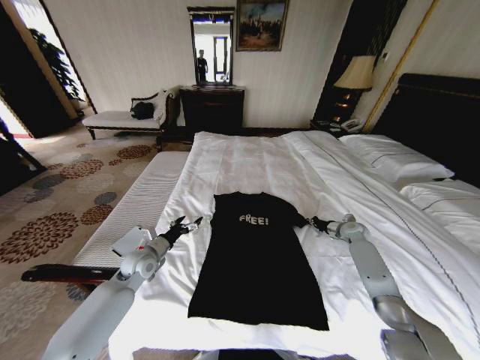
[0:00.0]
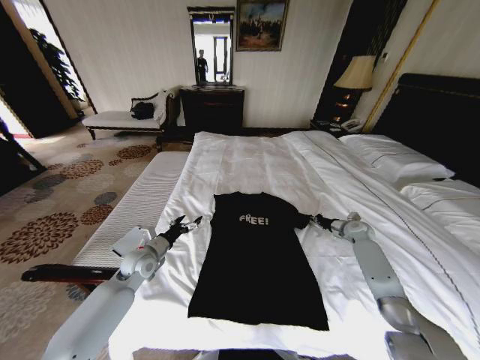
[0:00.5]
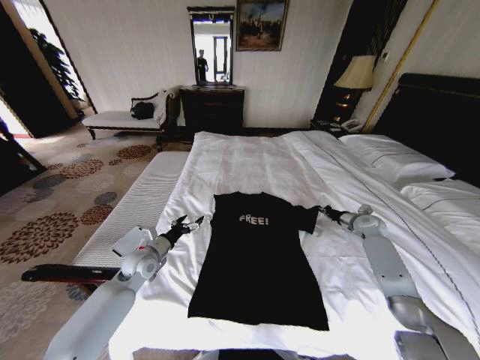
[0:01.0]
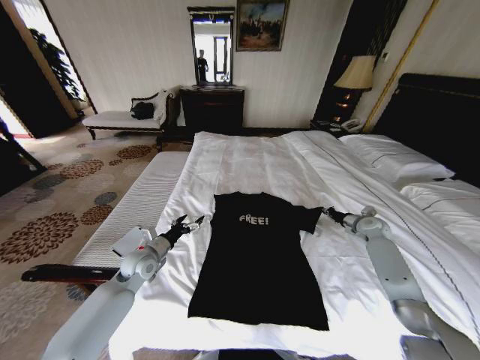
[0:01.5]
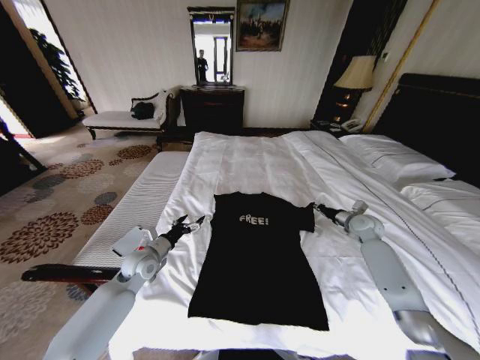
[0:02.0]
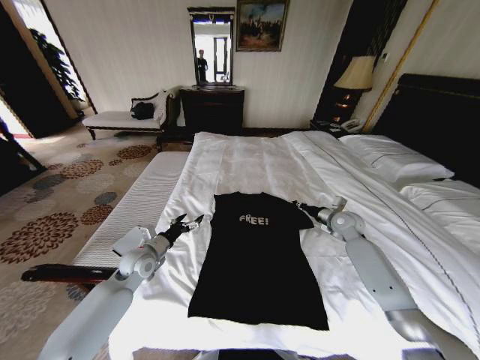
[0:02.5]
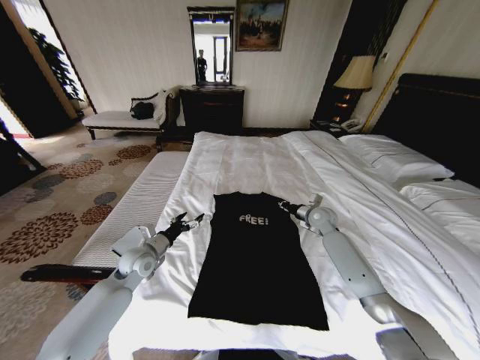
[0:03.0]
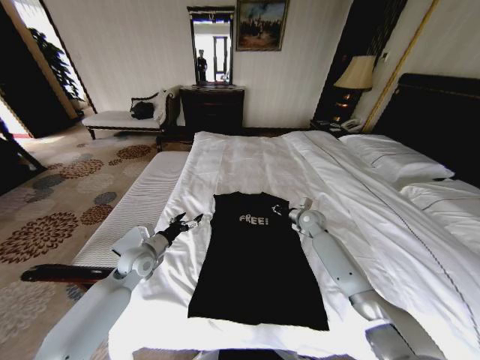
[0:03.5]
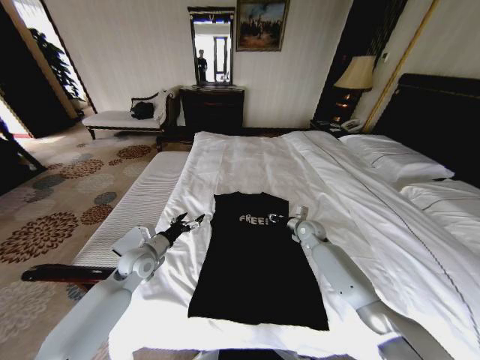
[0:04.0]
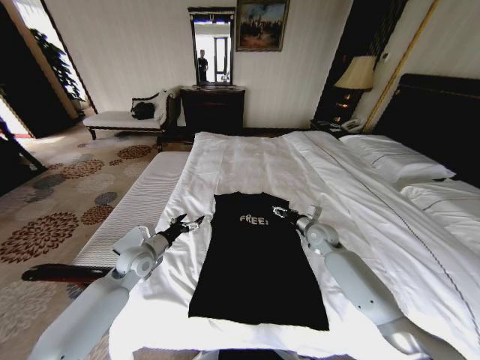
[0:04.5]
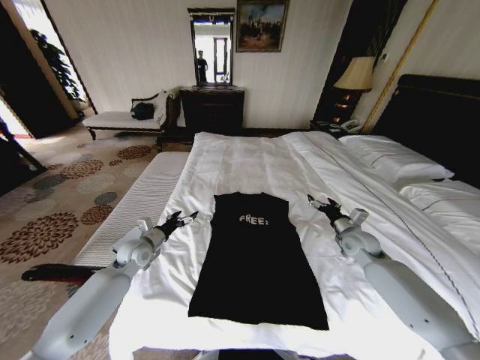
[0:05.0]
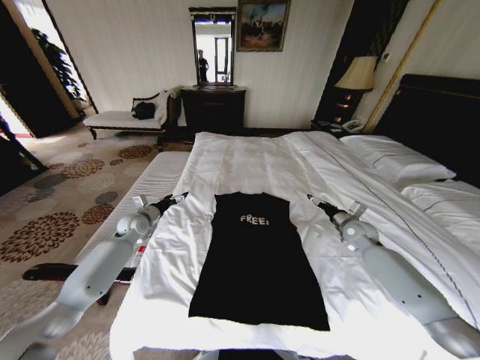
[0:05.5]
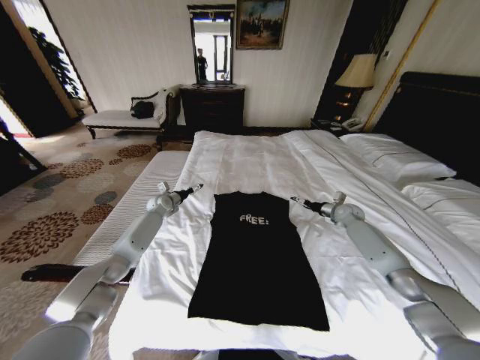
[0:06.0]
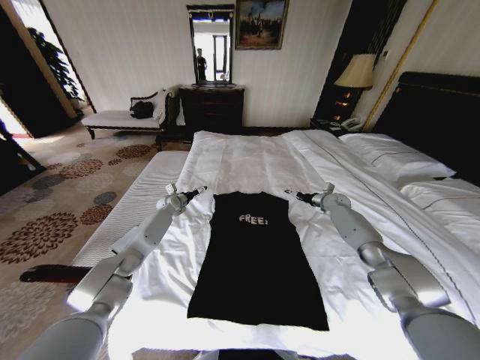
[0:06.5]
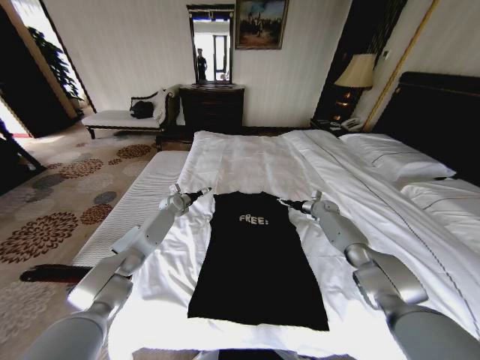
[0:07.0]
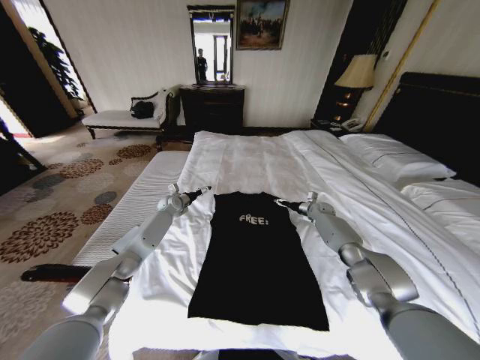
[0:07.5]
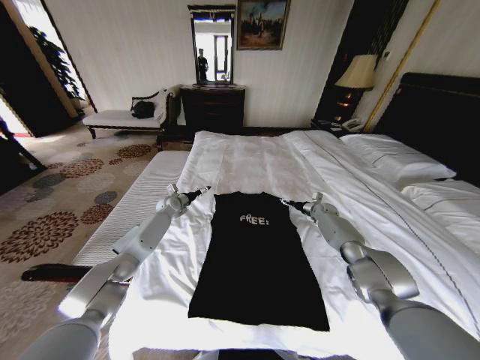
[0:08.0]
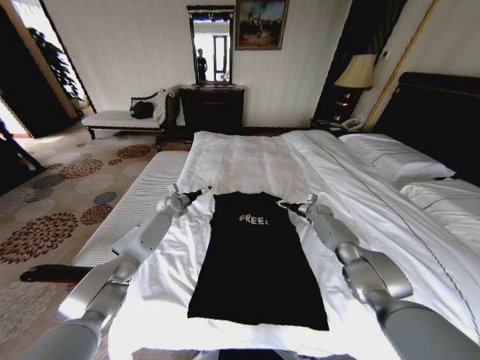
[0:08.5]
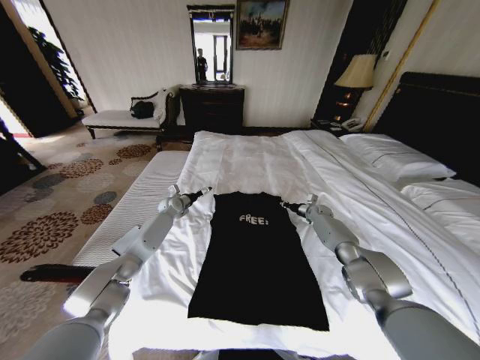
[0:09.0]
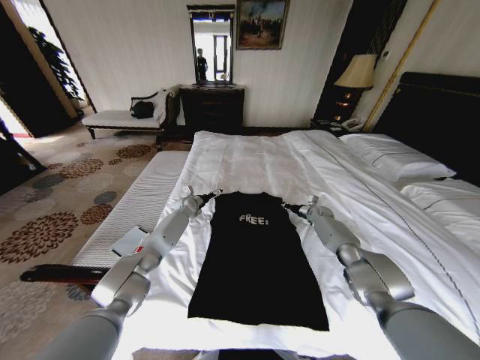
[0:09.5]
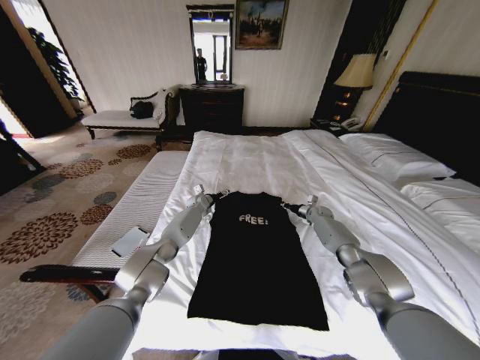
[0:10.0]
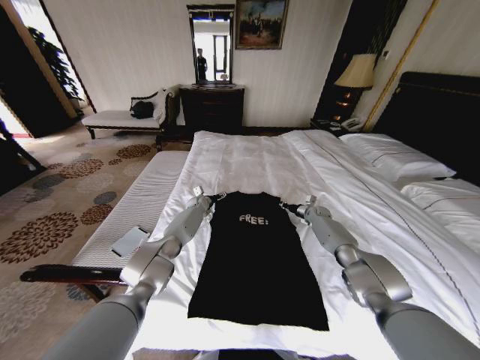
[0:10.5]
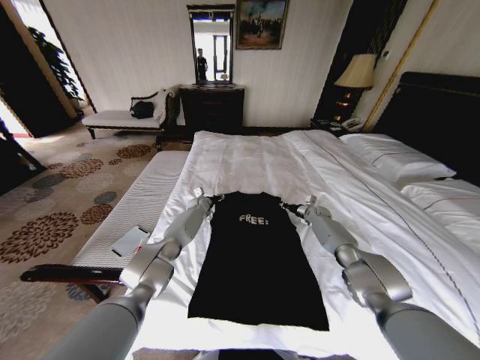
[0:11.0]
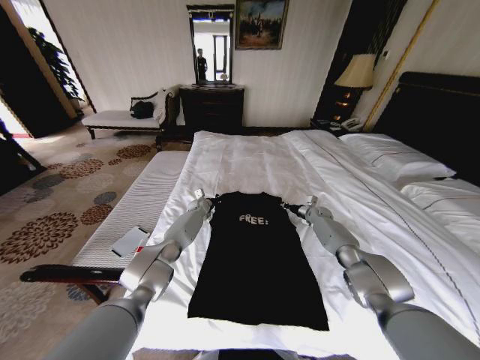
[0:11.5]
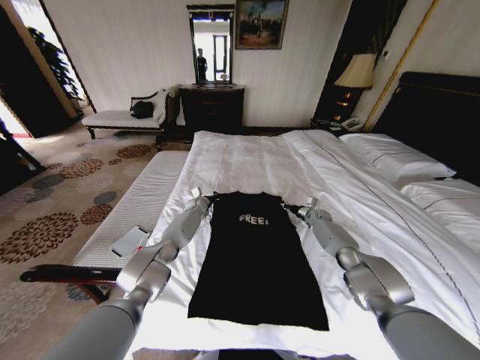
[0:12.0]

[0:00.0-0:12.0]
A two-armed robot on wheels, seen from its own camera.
Task of the whole recording: Fold the clothes on the bed.
0:00.0 to 0:02.0: The right gripper goes about 5 cm upward.
0:02.0 to 0:04.0: The right gripper heads to the left, covering roughly 15 cm.
0:04.0 to 0:06.0: The left gripper is displaced forward by approximately 25 cm, while the right gripper travels to the right and forward by approximately 15 cm, and opens up.
0:06.0 to 0:08.0: The right gripper travels downward and forward by approximately 10 cm.
0:08.0 to 0:10.0: The left gripper goes roughly 10 cm to the right. The right gripper closes up.
0:10.0 to 0:12.0: The left gripper closes its fingers.

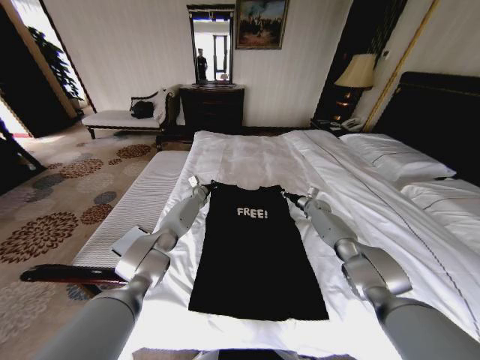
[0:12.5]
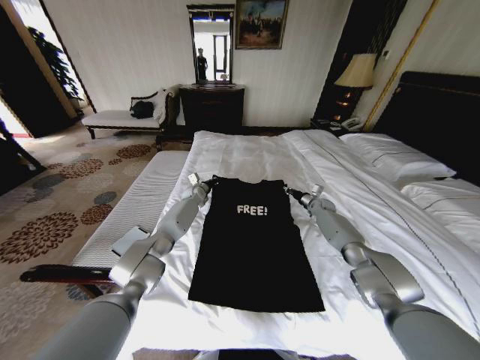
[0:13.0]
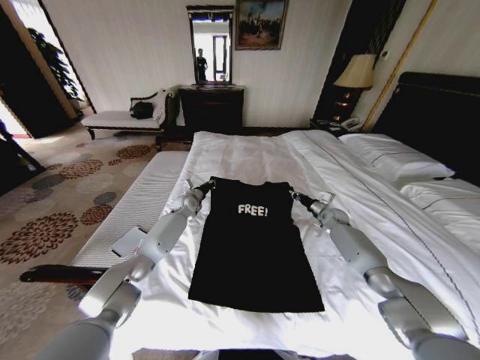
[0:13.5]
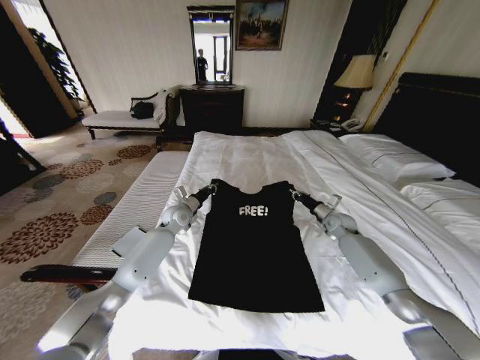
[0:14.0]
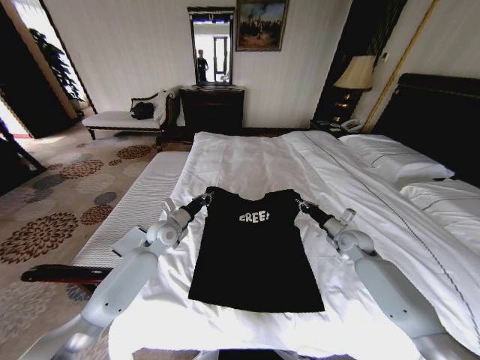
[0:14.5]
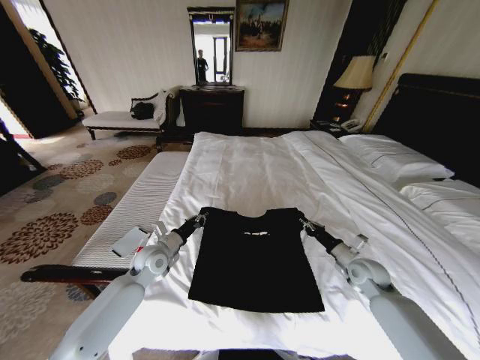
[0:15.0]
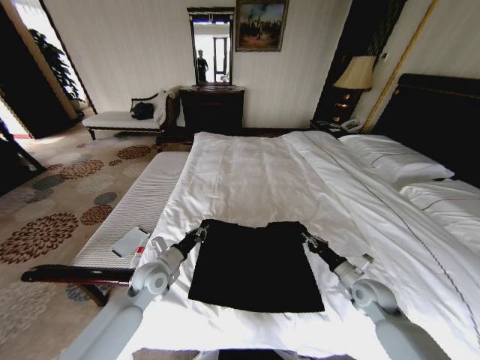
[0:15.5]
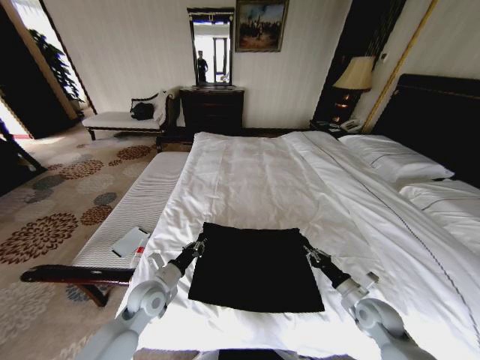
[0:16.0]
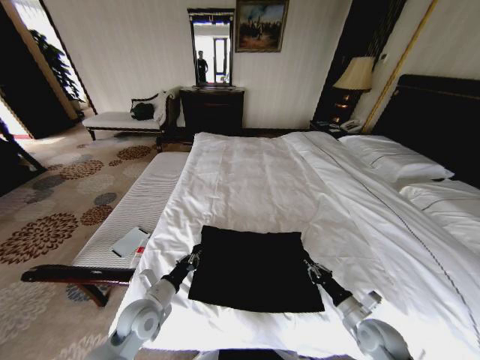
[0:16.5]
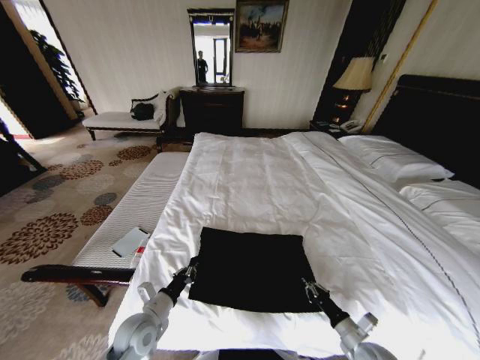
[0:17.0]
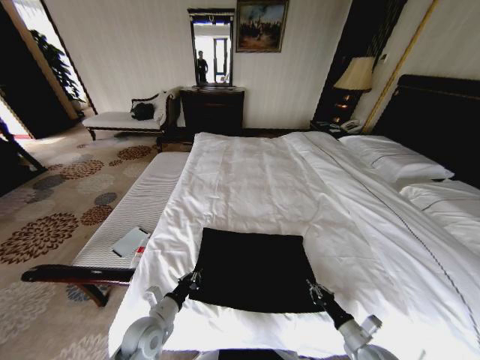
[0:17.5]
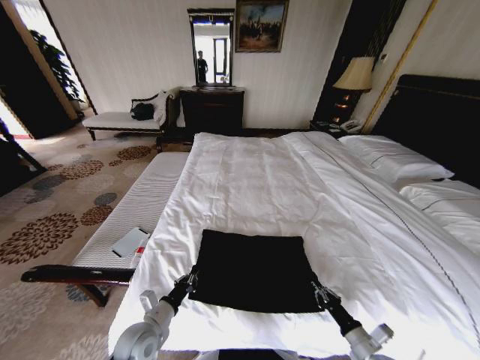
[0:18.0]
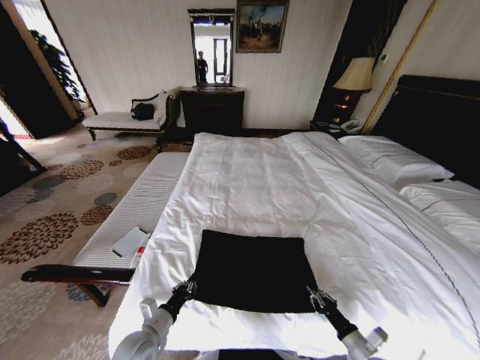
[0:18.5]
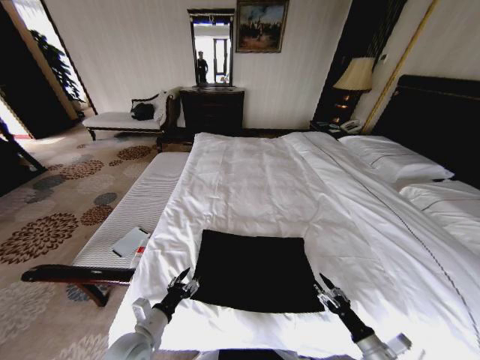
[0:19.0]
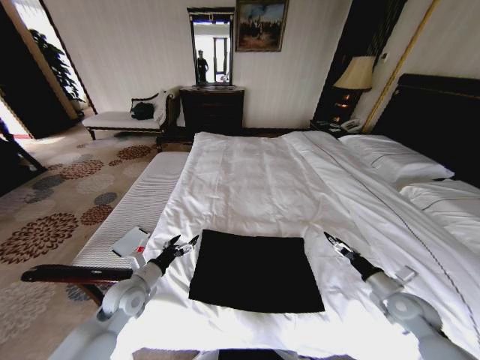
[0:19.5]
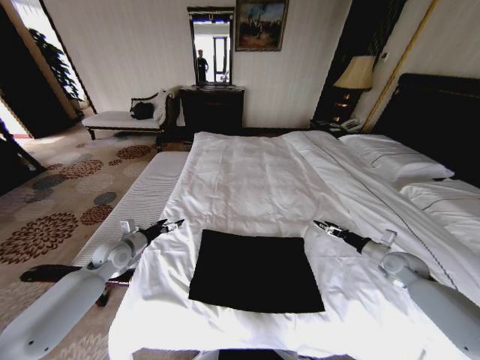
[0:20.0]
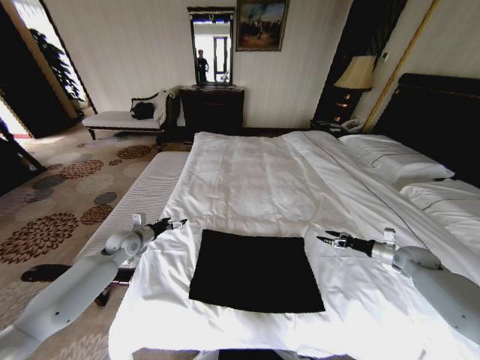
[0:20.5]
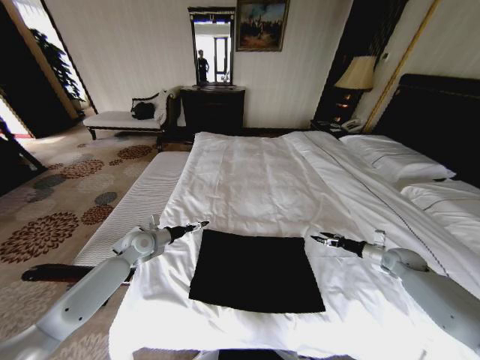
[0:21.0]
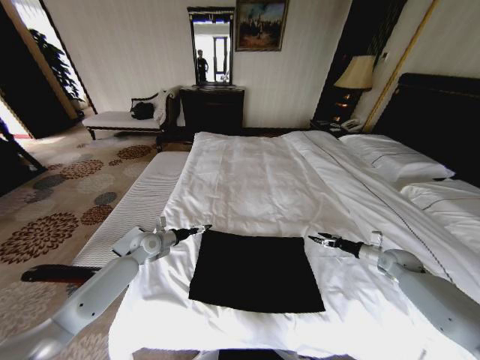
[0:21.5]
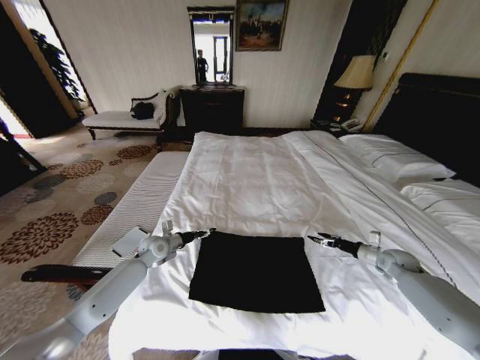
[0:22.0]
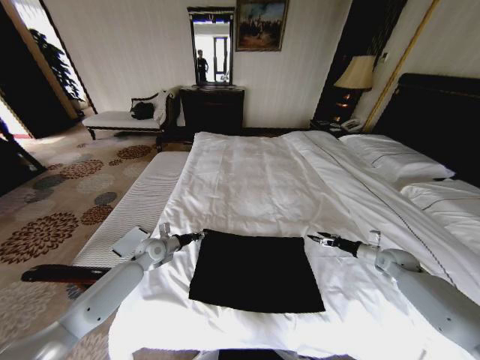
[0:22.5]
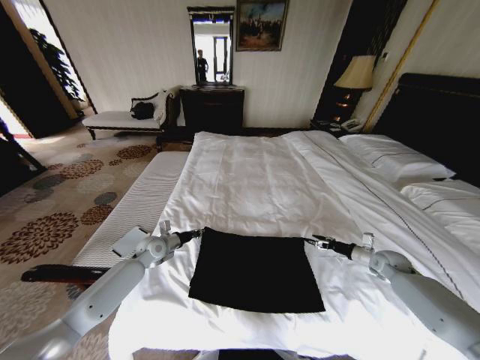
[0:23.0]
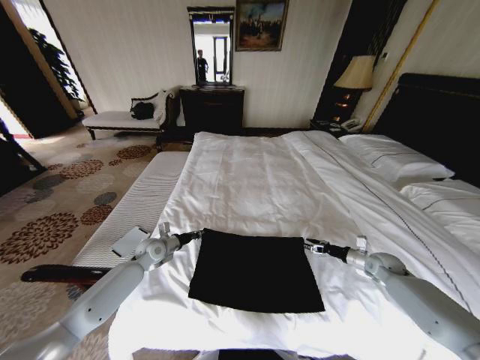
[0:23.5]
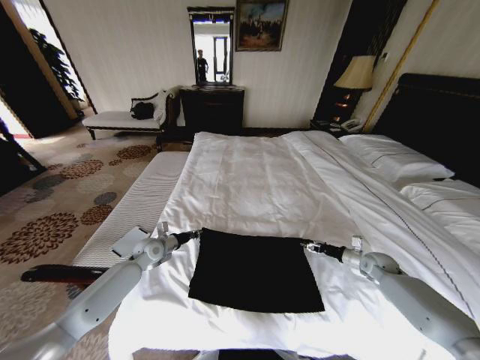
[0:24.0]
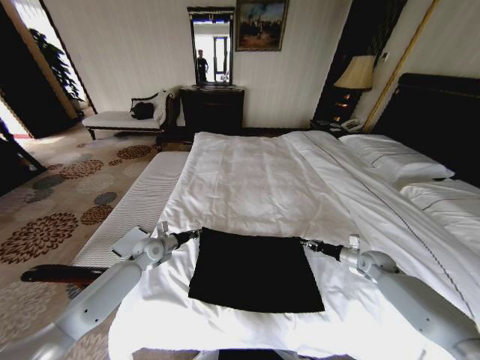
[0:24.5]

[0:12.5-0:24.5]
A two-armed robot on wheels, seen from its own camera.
Task of the whole recording: Fold the clothes on the bed.
0:12.5 to 0:14.5: Both grippers move backward, roughly 20 cm.
0:14.5 to 0:16.5: Both grippers move backward, roughly 25 cm.
0:16.5 to 0:18.5: Both grippers travel together backward, some 5 cm.
0:18.5 to 0:20.5: The left gripper travels forward and to the left by roughly 30 cm, and opens. Meanwhile the right gripper goes about 35 cm forward, to the right and upward, and opens up.
0:20.5 to 0:22.5: The left gripper shifts approximately 5 cm to the right, and closes up.
0:22.5 to 0:24.5: The right gripper ends up roughly 5 cm from where it was, and closes up.

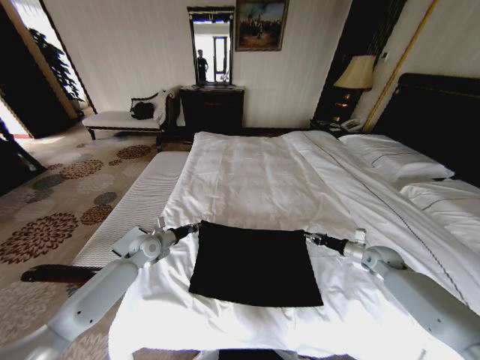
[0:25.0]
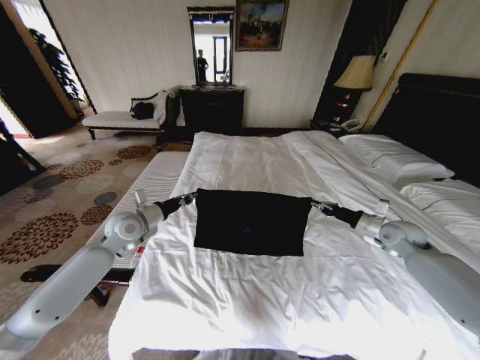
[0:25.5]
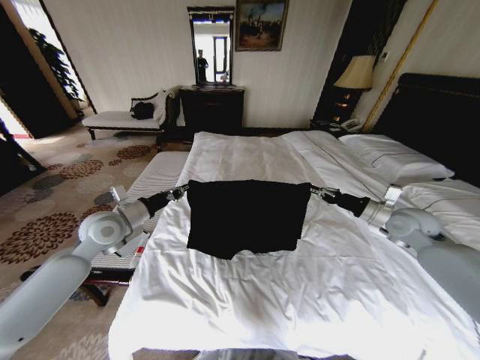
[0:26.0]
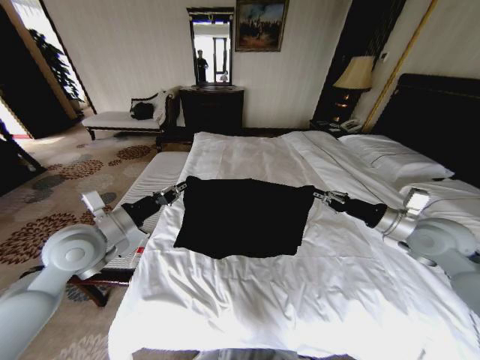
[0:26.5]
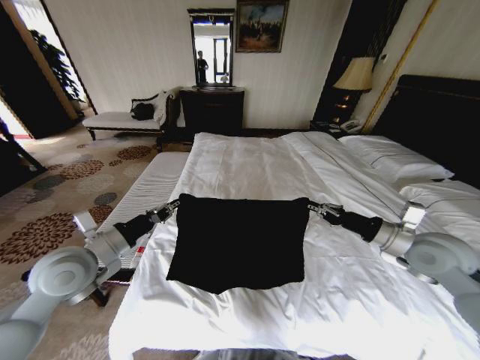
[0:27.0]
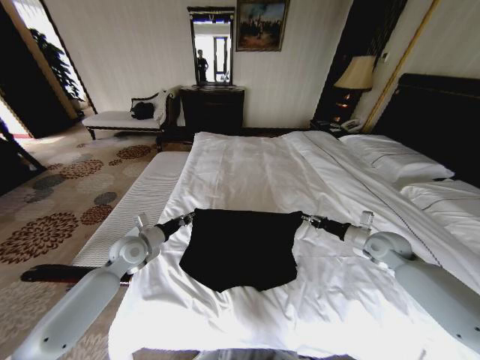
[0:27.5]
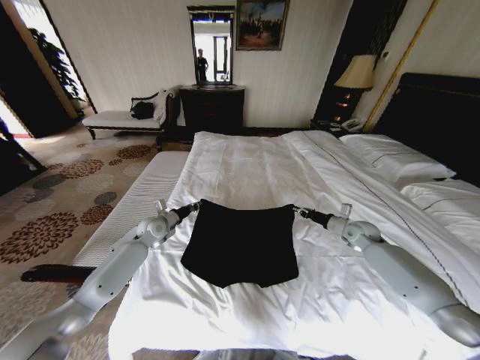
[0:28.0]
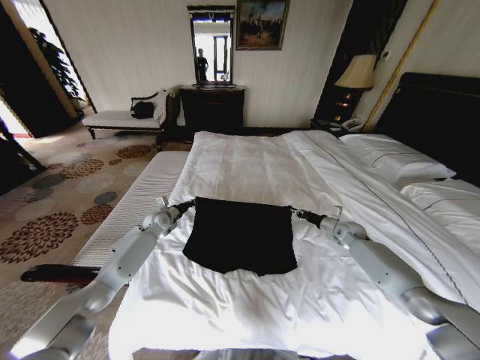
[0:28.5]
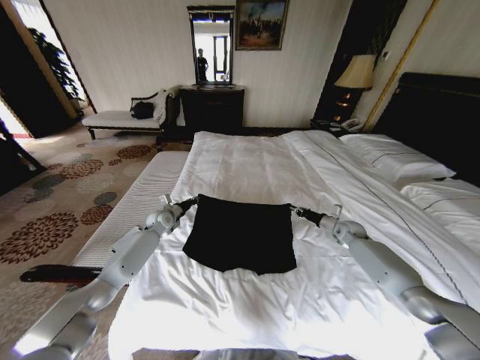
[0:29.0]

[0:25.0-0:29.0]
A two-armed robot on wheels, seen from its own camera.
Task of the whole recording: Fold the clothes on the bed.
0:25.0 to 0:27.0: The right gripper shifts roughly 25 cm upward, to the left and backward. The left gripper is displaced upward and backward by roughly 25 cm.
0:27.0 to 0:29.0: Both grippers move forward and downward, approximately 30 cm.
